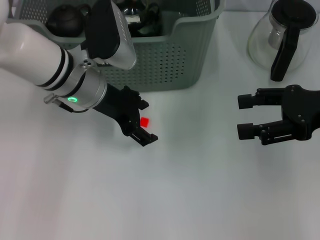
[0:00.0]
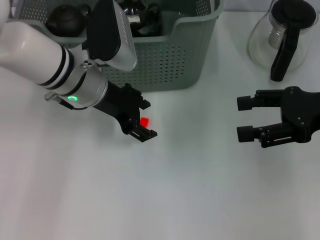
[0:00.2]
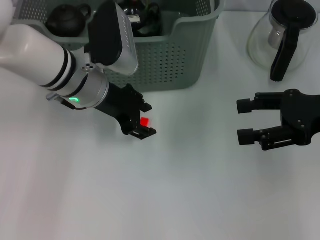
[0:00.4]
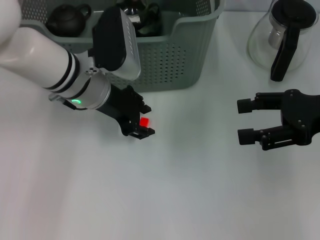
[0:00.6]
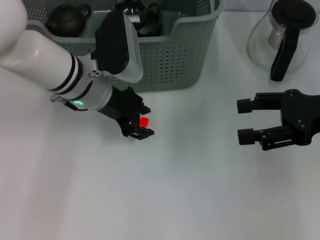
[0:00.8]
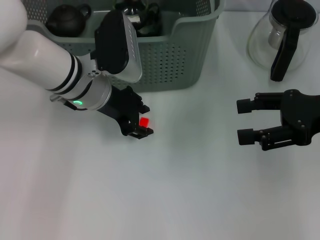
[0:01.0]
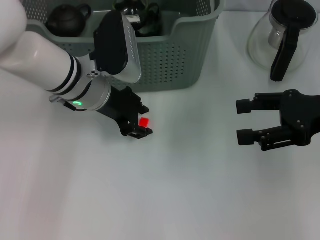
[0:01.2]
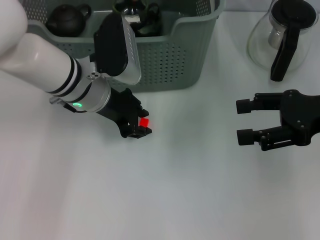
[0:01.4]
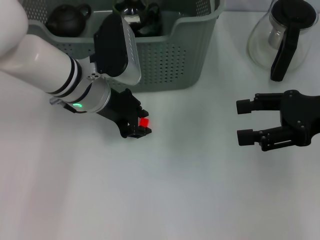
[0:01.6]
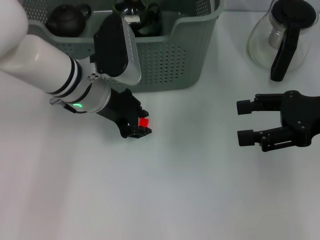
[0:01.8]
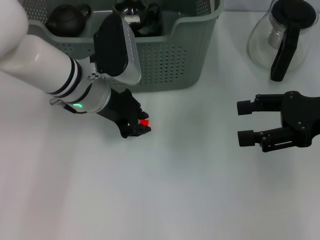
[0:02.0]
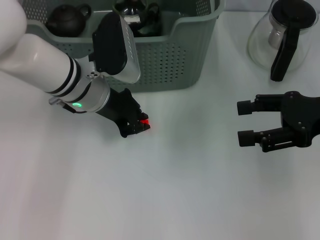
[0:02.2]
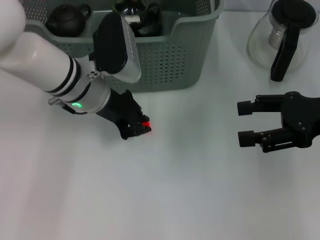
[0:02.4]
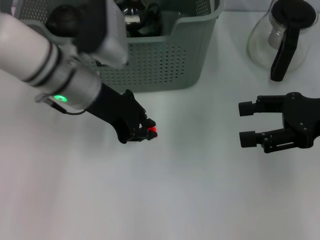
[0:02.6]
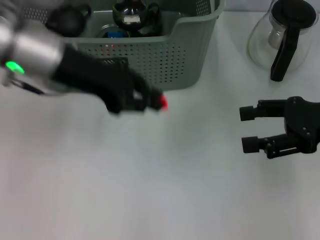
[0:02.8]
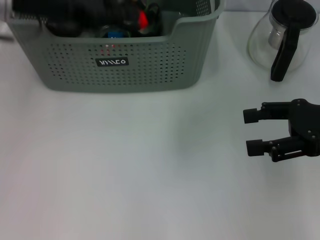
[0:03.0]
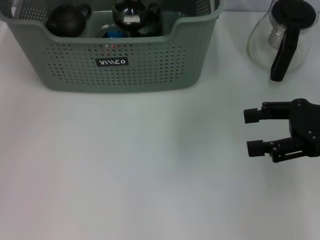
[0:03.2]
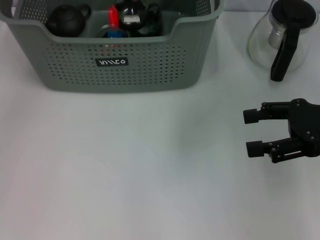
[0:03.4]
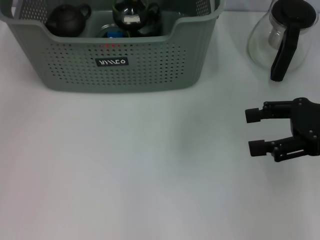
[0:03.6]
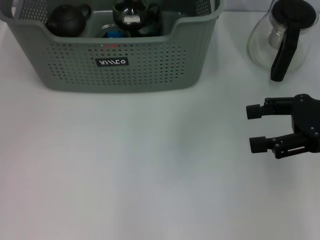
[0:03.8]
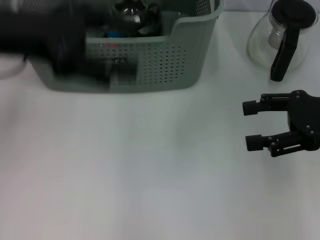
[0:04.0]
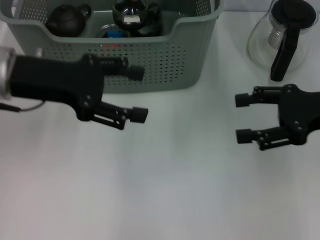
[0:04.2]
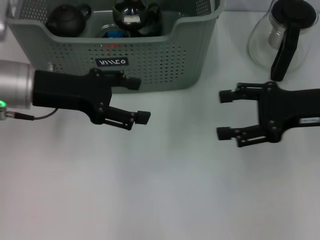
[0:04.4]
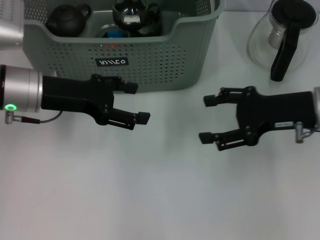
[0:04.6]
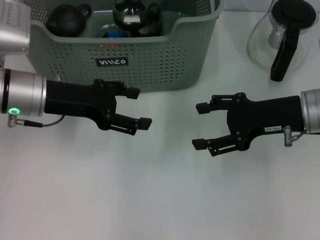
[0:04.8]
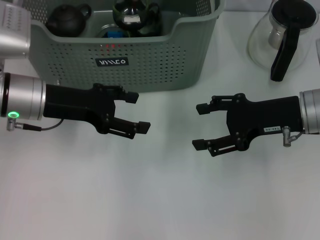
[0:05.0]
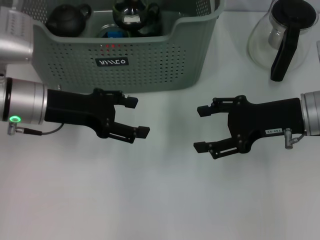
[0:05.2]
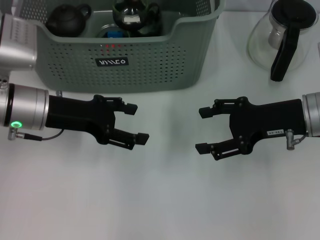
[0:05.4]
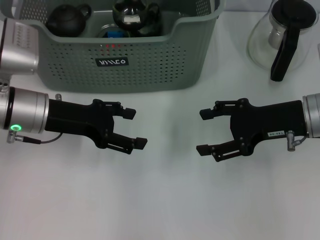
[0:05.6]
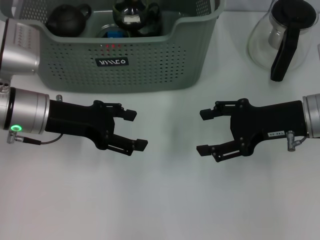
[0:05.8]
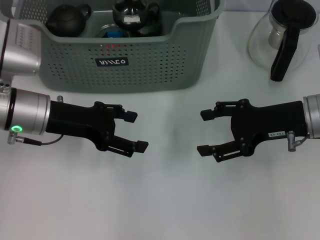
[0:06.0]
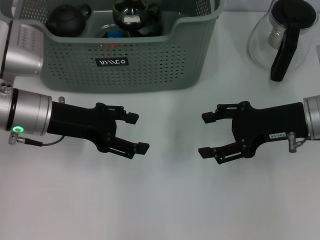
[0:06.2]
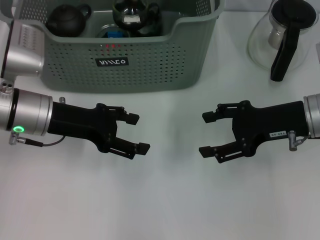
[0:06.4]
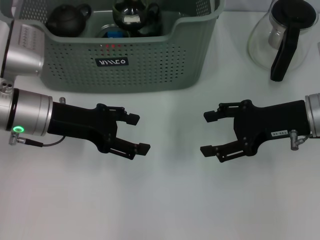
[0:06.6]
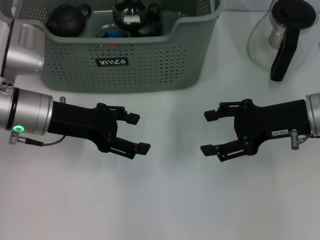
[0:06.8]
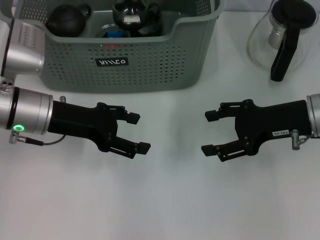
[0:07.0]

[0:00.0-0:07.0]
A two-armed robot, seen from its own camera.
Task of the whole recording: pick up the teacup on the table and place it into the storage bin, pick up the block on the table and place it into the storage bin.
Step, 0:00.0 to 0:02.2: Grasp the orange block with left gripper.
Step, 0:02.4 to 0:03.4: Place the orange block in the storage box with left gripper.
0:00.0 to 0:01.4: The left gripper closes.
0:01.4 to 0:02.8: The left gripper goes some 10 cm upward, and closes up.
0:02.8 to 0:04.2: The left gripper goes about 5 cm to the left, goes forward and returns, roughly 10 cm each way, and opens up.
0:04.2 to 0:05.6: The right gripper goes approximately 5 cm to the left; the left gripper shifts some 10 cm downward.
0:05.6 to 0:07.0: The two grippers keep their place.
